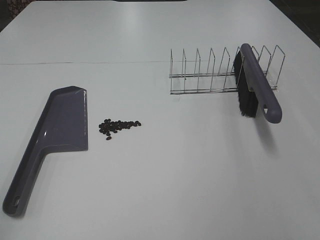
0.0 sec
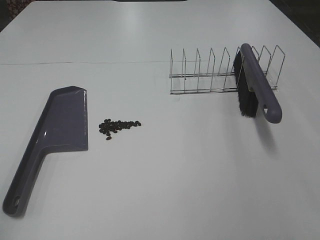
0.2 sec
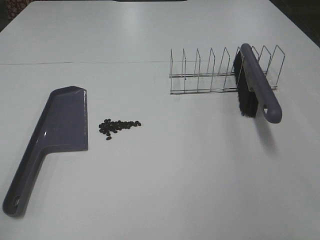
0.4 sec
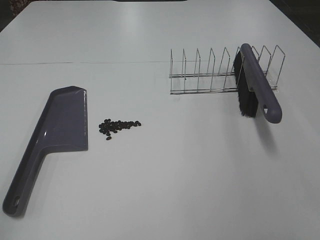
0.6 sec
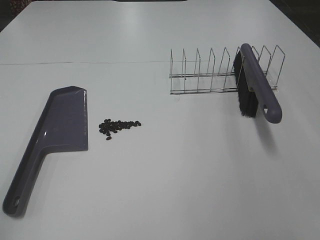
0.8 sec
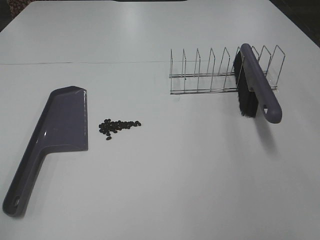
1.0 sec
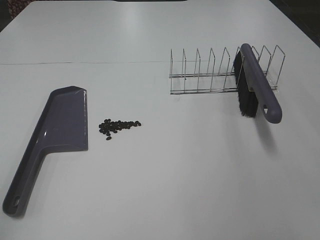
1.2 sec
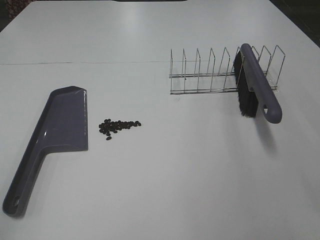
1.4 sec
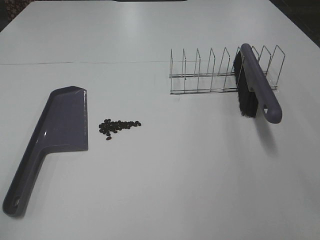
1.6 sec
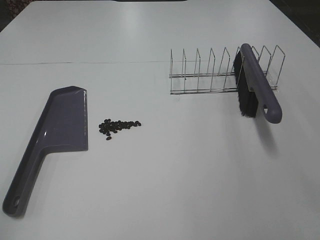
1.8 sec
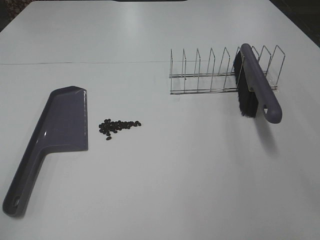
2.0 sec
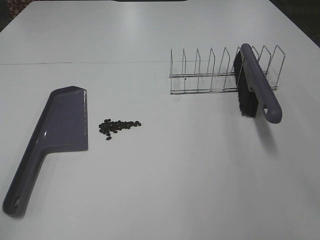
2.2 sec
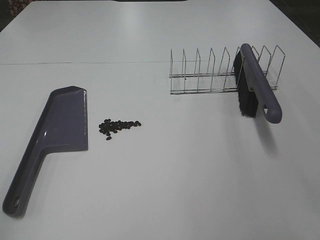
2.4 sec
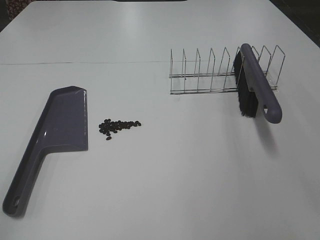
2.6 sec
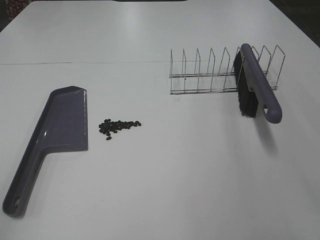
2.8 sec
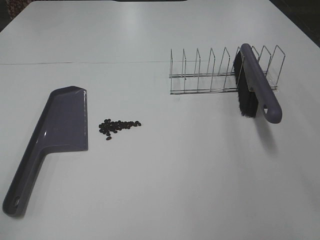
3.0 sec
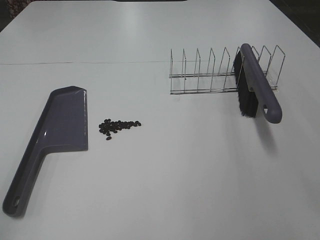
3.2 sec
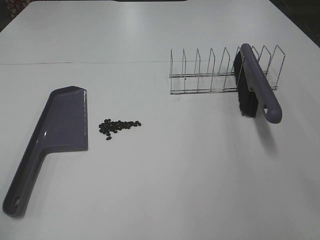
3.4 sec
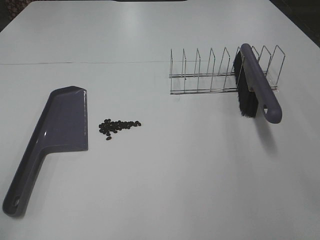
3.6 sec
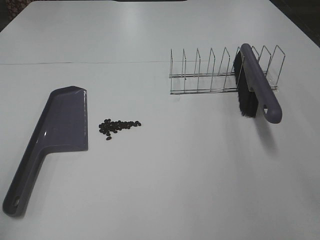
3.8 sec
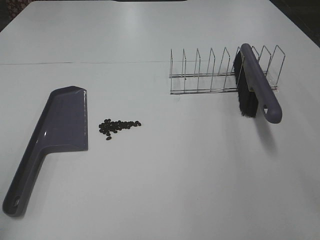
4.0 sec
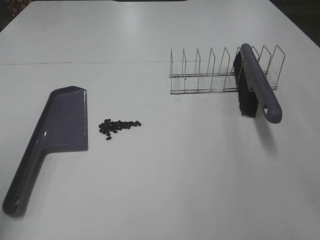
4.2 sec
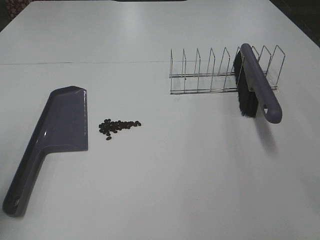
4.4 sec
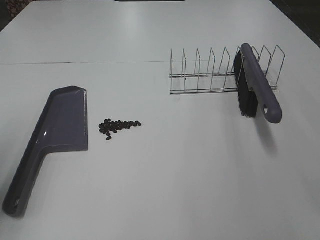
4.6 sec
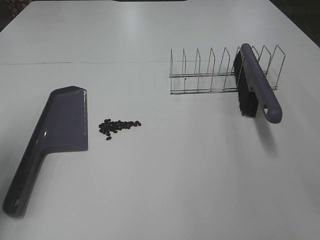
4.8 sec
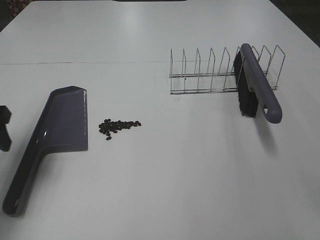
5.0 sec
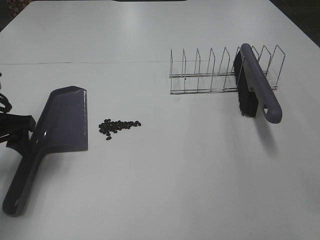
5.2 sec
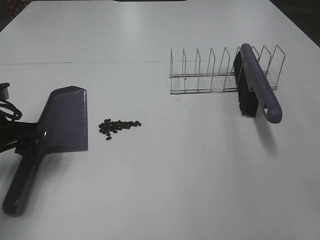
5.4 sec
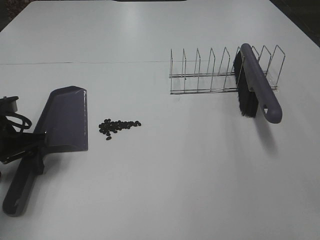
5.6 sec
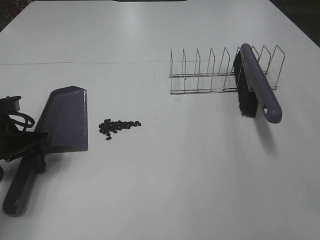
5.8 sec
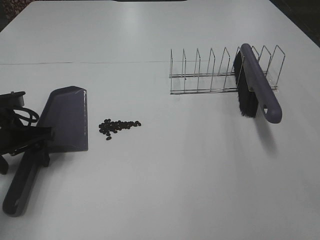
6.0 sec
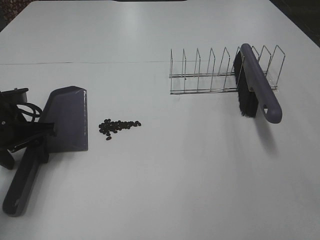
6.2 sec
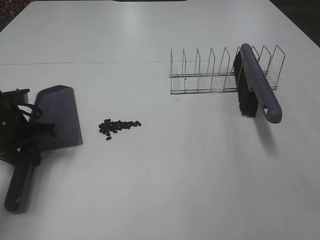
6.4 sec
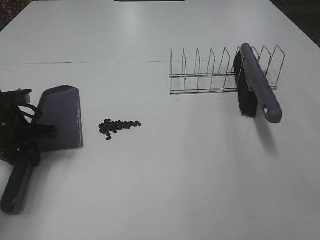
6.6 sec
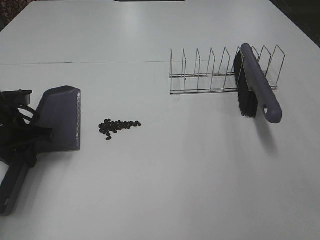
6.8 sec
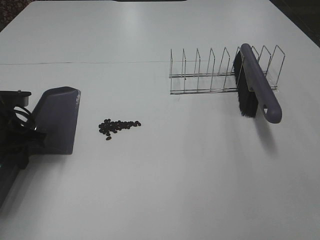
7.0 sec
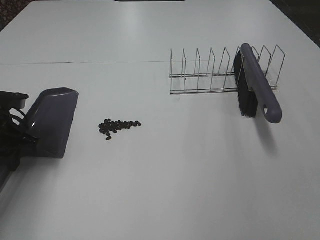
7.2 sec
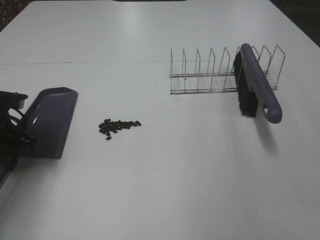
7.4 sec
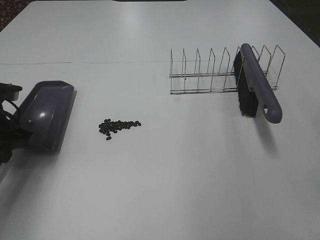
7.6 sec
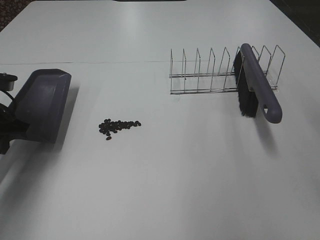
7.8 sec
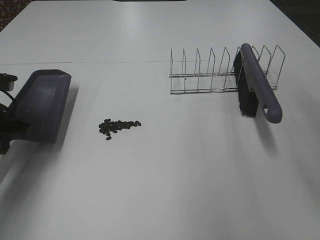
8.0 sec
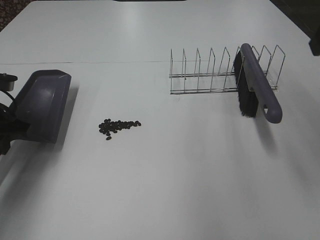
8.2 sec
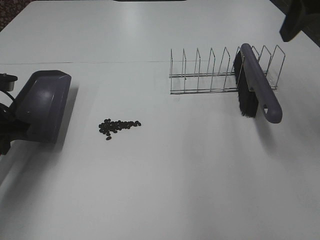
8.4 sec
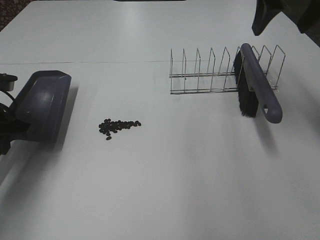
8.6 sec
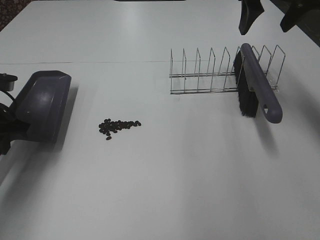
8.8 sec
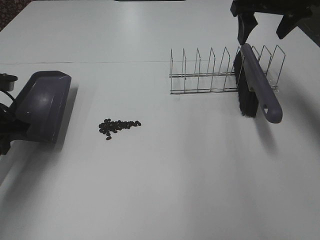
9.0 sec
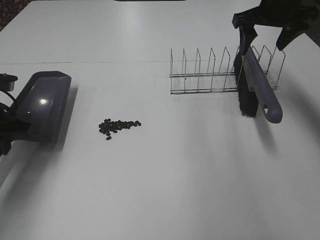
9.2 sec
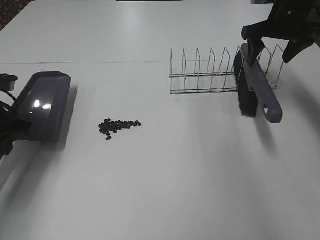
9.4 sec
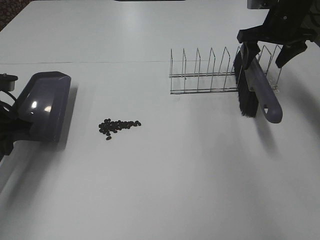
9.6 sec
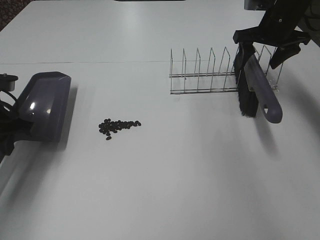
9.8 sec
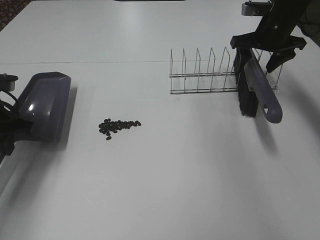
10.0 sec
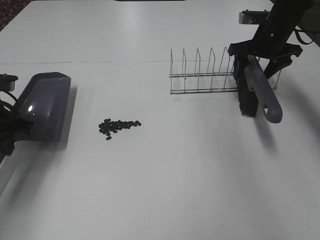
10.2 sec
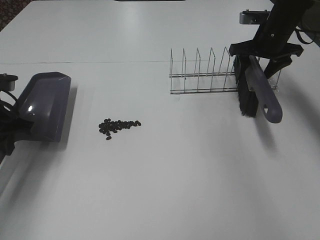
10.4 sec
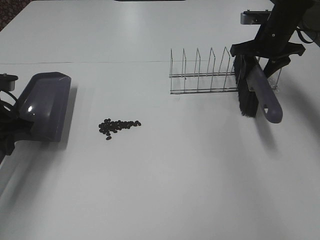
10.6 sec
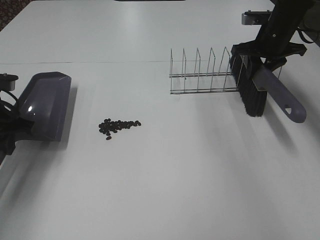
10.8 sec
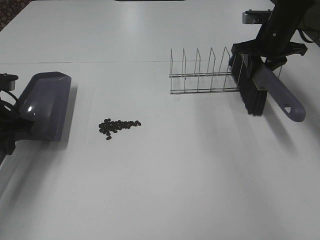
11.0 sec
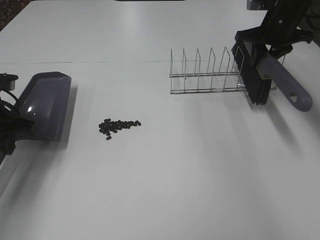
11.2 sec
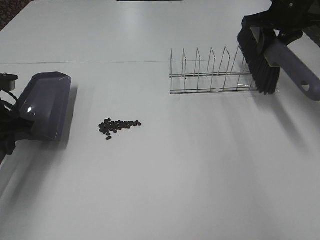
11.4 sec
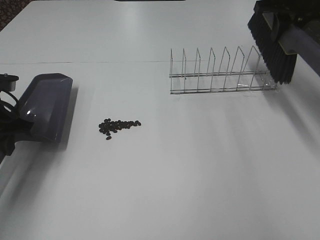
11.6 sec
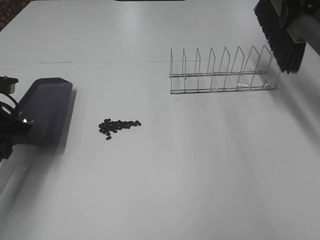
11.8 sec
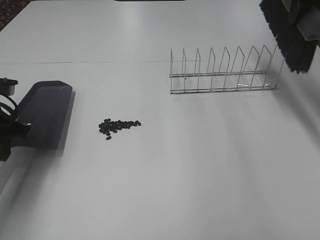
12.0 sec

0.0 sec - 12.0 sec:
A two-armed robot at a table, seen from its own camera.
Task of the whole recording: Sweep Coffee Bean.
Step, 0.0 sec - 6.4 sec: Left hand: grab the dustpan.
Step, 6.8 sec - 10.6 sec: Right hand:grab the broom.
0.0 sec - 3.0 sec: The two grippers keep their place.
4.4 sec - 6.0 sec: The left gripper moves downward, forward and to the right, roughly 20 cm.
6.0 sec - 7.6 sec: The left gripper closes.
7.6 sec - 9.0 sec: The right gripper is displaced forward by about 35 cm.
9.0 sec - 10.4 sec: The right gripper heads downward, covering roughly 10 cm.
10.4 sec - 12.0 sec: The right gripper shifts about 15 cm upward and backward, and closes.

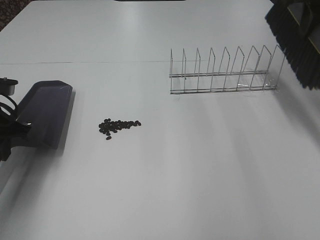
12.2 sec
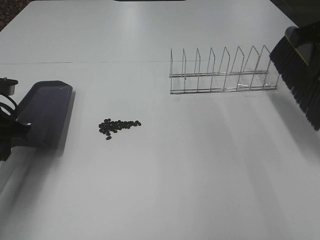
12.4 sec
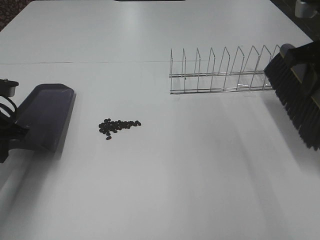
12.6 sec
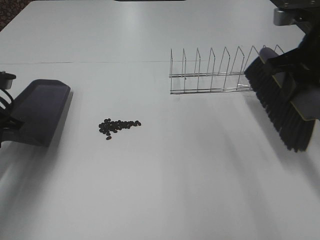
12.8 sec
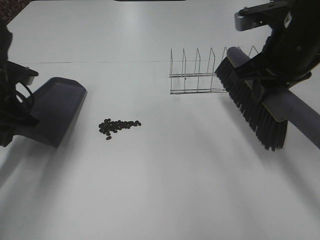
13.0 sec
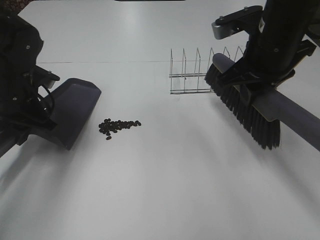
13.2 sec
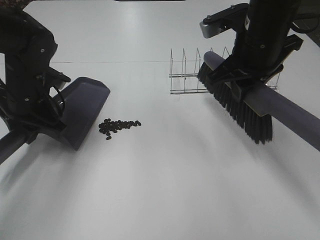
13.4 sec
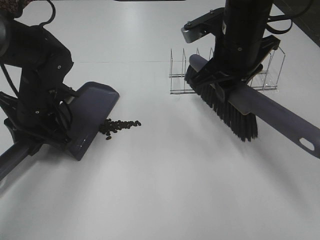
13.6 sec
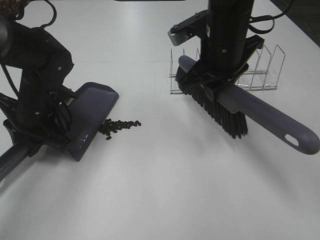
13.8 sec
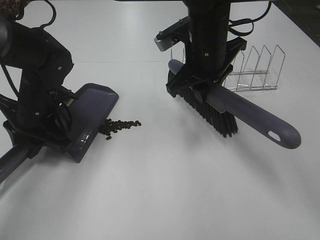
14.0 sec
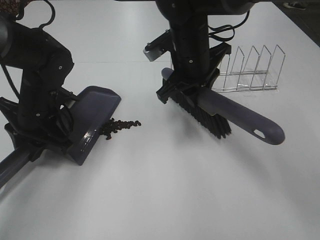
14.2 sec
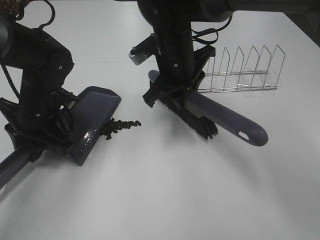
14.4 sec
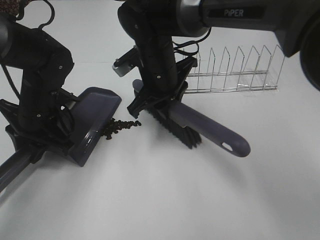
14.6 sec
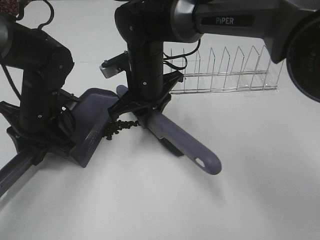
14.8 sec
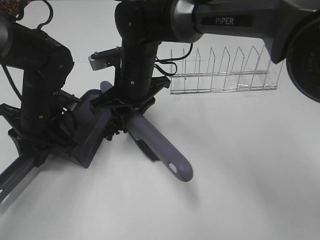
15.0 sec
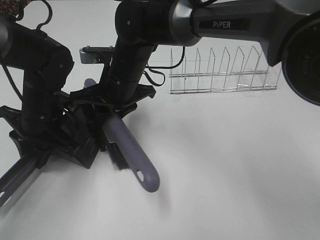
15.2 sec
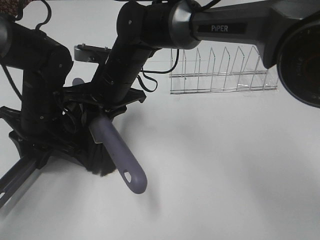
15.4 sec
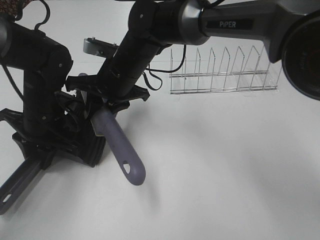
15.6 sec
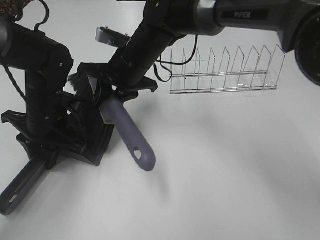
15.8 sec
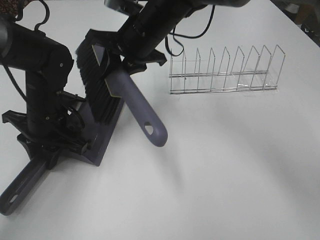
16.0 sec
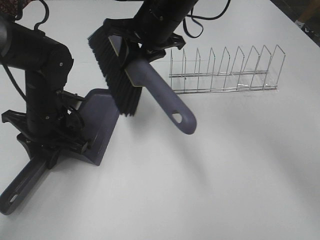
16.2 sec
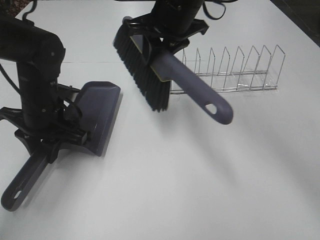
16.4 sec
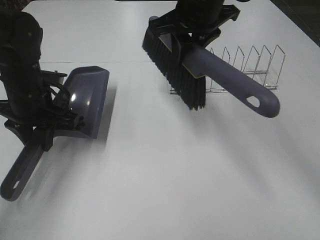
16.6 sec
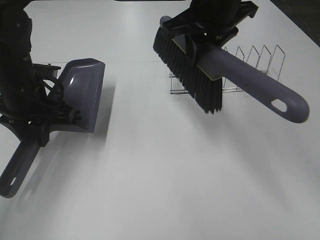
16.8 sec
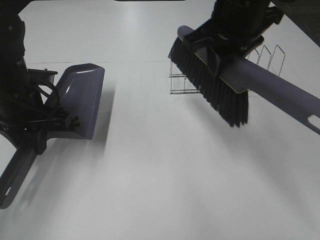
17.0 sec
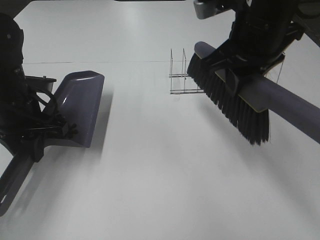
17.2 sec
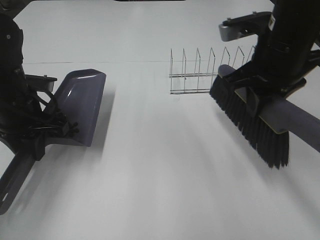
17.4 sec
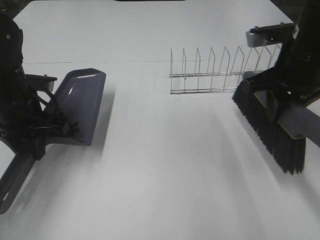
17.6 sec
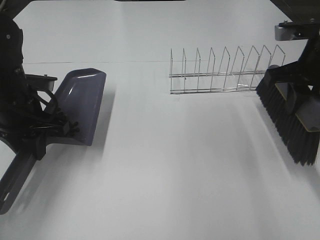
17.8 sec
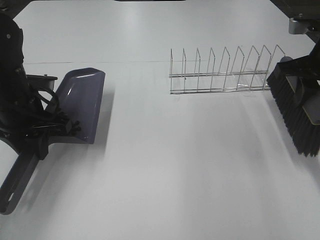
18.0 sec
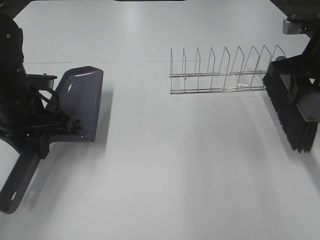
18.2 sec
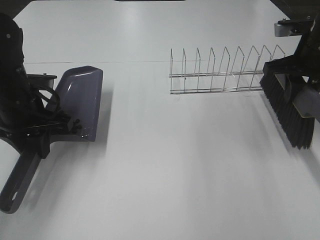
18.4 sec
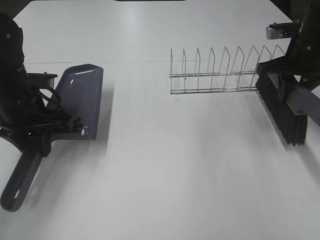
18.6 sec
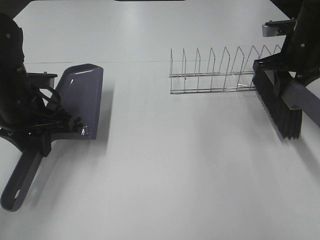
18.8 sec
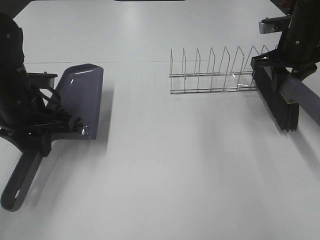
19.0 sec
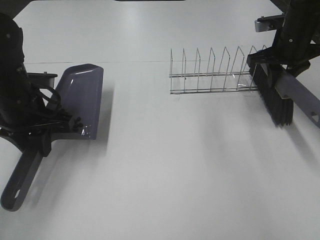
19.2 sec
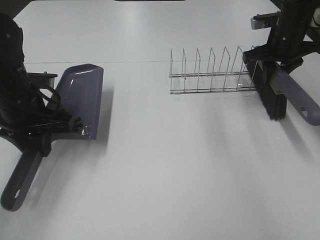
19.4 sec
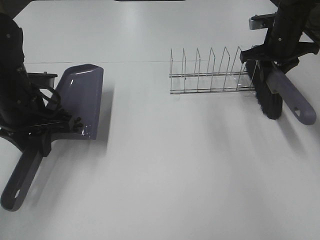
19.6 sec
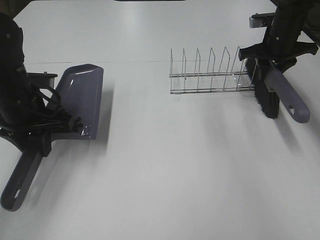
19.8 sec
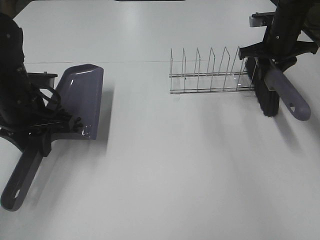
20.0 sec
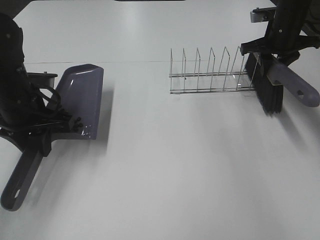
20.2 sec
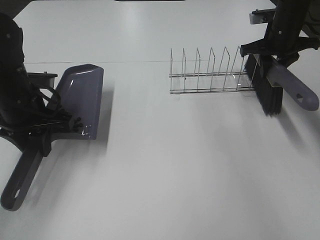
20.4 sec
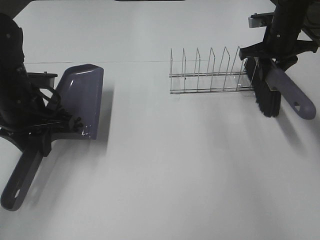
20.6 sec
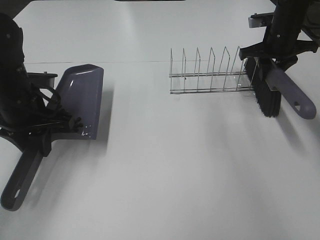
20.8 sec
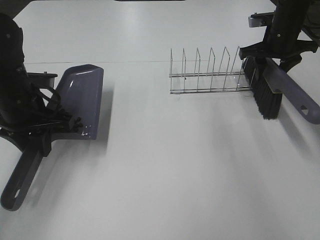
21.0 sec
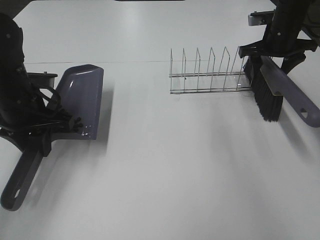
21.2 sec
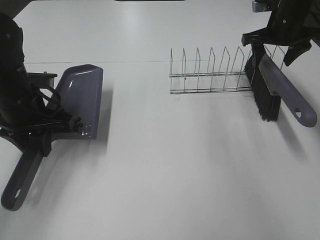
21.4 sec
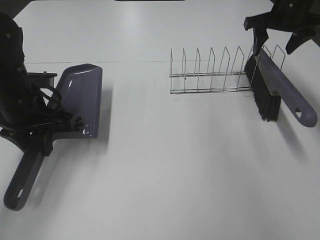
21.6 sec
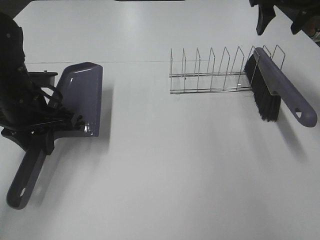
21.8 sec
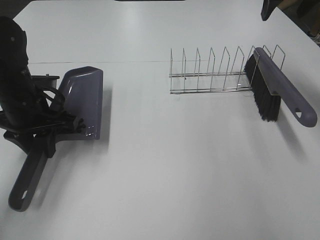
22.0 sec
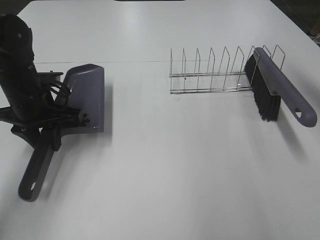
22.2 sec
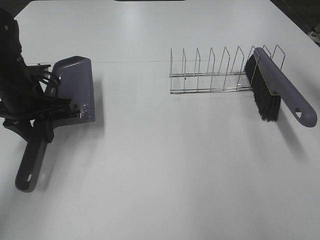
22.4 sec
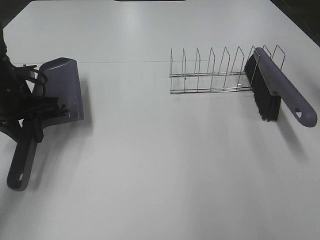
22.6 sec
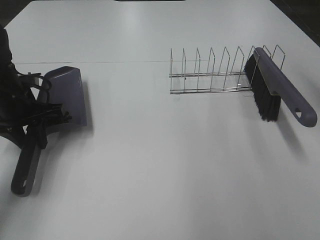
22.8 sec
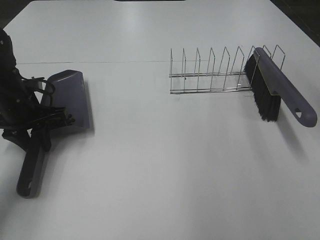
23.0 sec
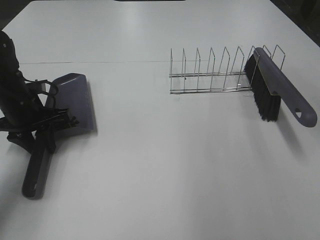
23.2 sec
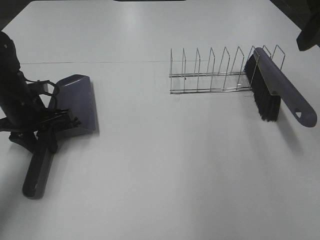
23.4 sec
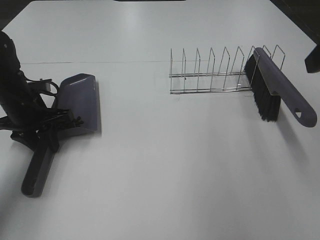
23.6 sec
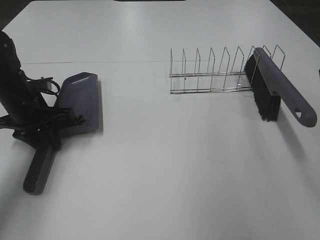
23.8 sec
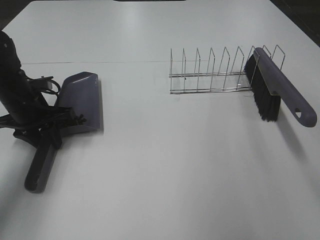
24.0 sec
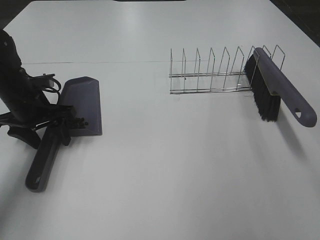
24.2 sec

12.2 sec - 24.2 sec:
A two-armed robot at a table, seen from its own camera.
Task of the whole recording: Sweep Coffee Bean.
Step, 12.2 sec - 15.8 sec: Right hand:sweep the coffee beans into the dustpan.
Step, 16.0 sec - 21.0 sec: Right hand:place the broom on the rack.
Step, 21.2 sec - 24.2 sec: Left hand:place the dustpan on the table.
12.2 sec - 13.8 sec: The left gripper is displaced to the right by approximately 10 cm, while the right gripper travels to the left and downward by about 20 cm.
13.8 sec - 15.2 sec: The right gripper goes about 15 cm to the left and downward.
15.2 sec - 16.6 sec: The right gripper goes about 20 cm upward and to the right.
16.6 sec - 18.2 sec: The right gripper goes roughly 20 cm to the right.
18.2 sec - 19.8 sec: The right gripper is displaced forward by about 15 cm.
19.8 sec - 21.2 sec: The right gripper opens up.
21.2 sec - 22.6 sec: The right gripper shifts some 25 cm upward. Meanwhile the left gripper moves roughly 5 cm.
22.6 sec - 24.2 sec: The left gripper opens.
